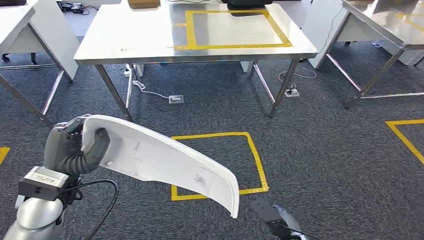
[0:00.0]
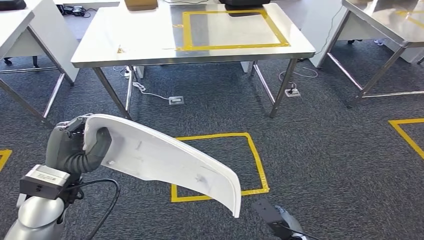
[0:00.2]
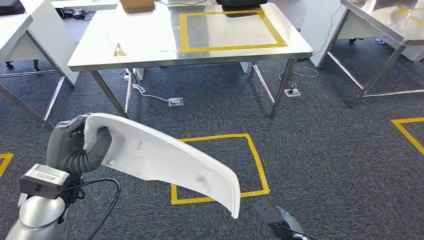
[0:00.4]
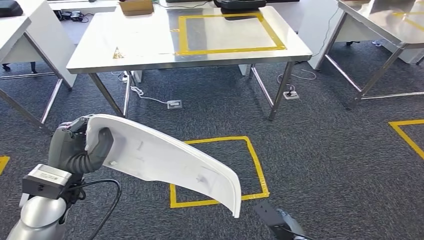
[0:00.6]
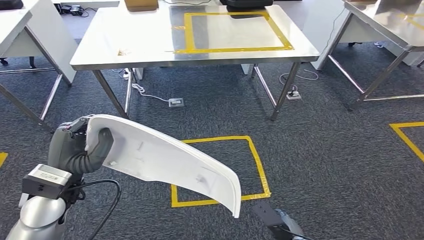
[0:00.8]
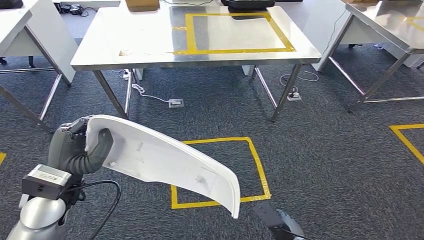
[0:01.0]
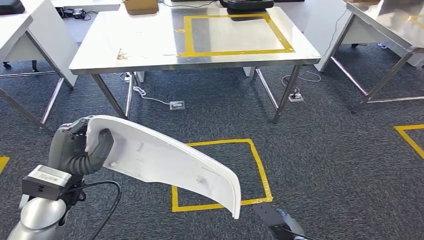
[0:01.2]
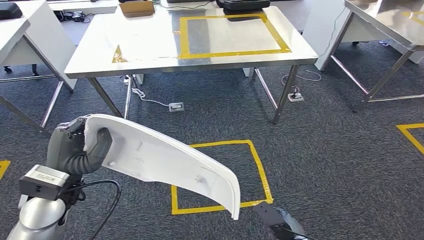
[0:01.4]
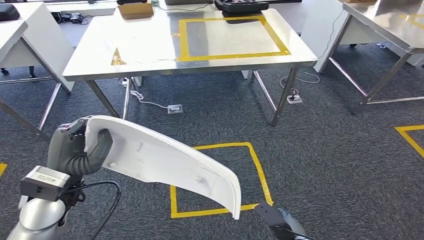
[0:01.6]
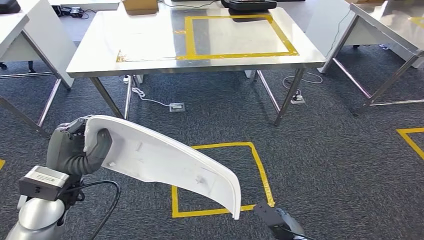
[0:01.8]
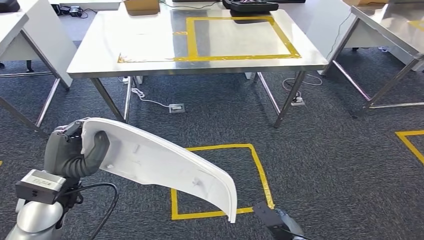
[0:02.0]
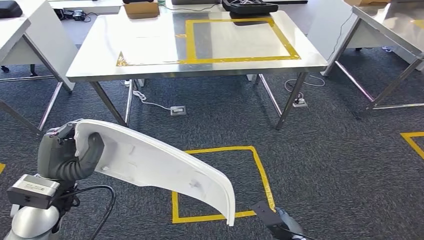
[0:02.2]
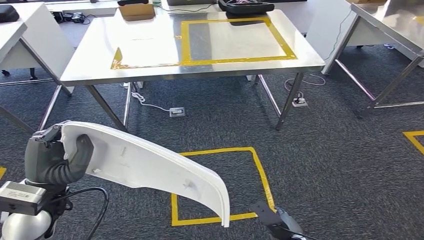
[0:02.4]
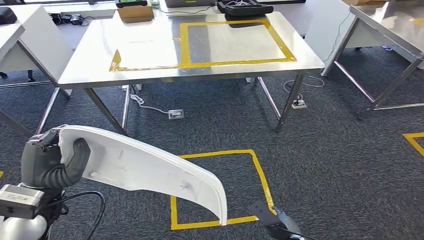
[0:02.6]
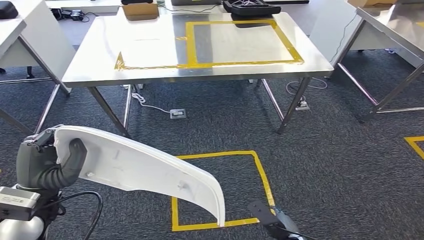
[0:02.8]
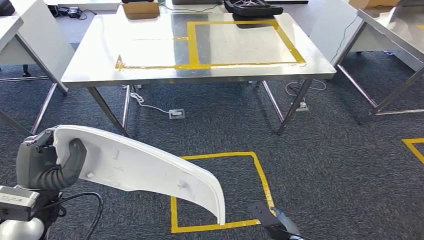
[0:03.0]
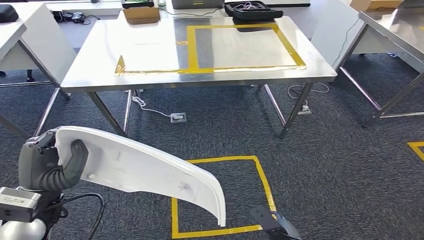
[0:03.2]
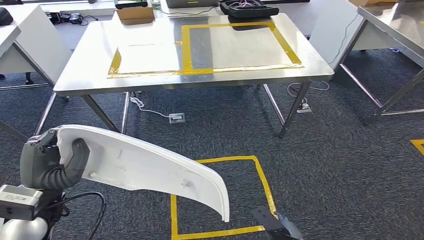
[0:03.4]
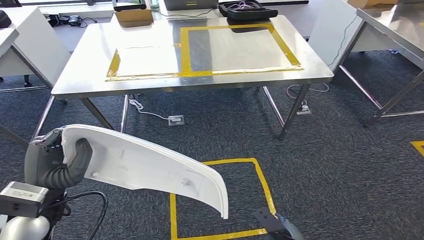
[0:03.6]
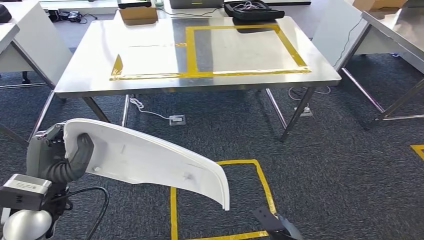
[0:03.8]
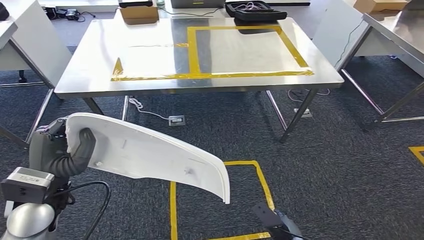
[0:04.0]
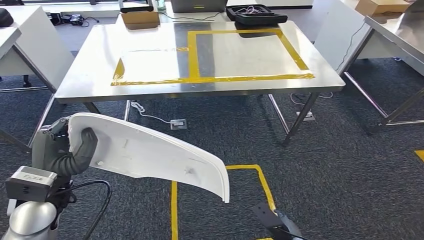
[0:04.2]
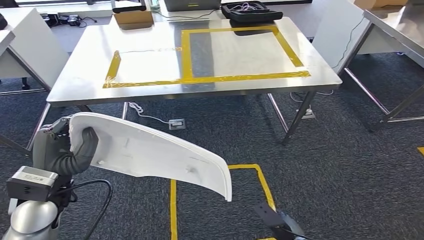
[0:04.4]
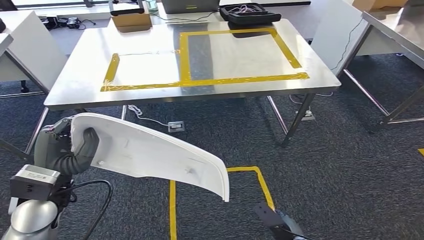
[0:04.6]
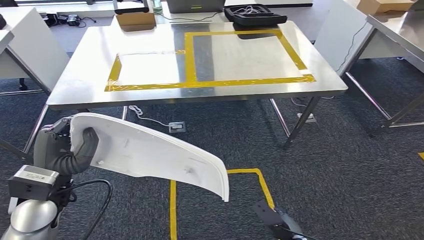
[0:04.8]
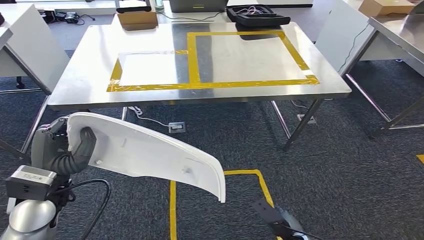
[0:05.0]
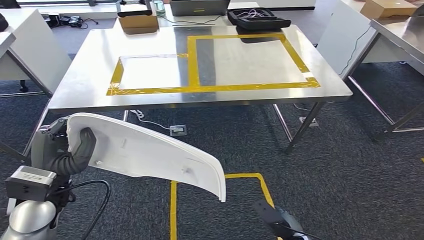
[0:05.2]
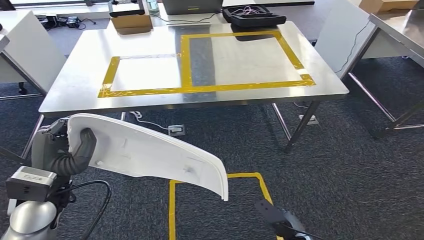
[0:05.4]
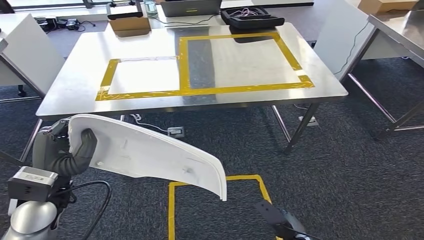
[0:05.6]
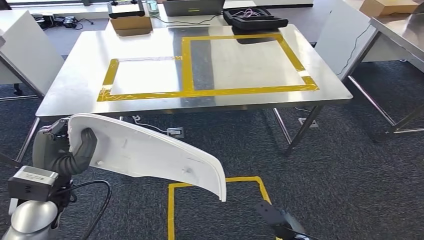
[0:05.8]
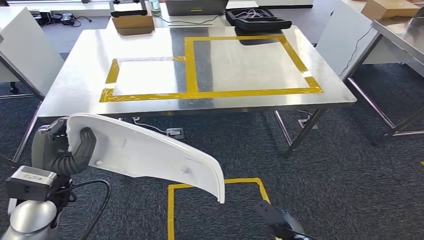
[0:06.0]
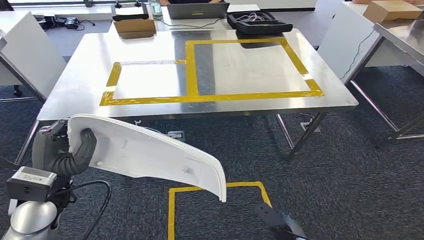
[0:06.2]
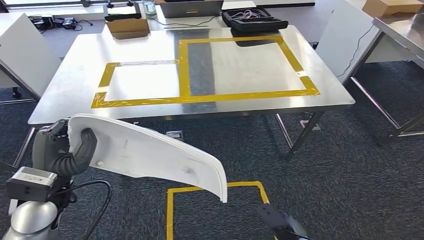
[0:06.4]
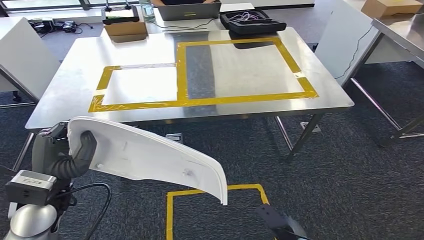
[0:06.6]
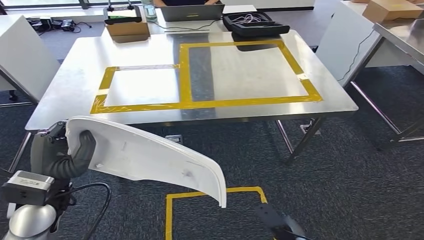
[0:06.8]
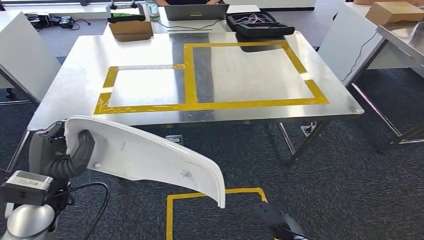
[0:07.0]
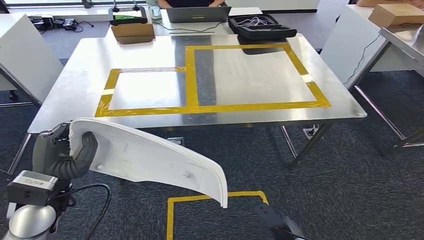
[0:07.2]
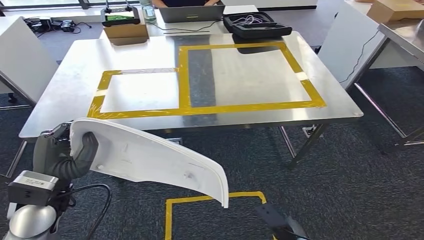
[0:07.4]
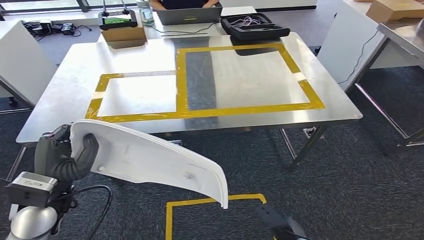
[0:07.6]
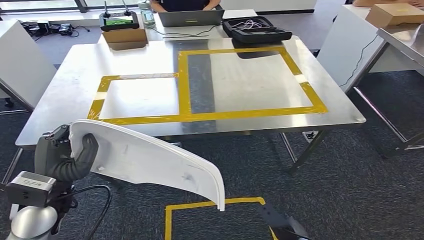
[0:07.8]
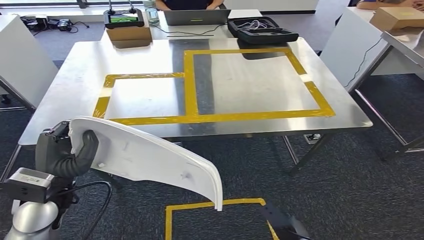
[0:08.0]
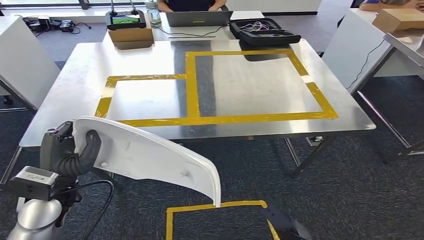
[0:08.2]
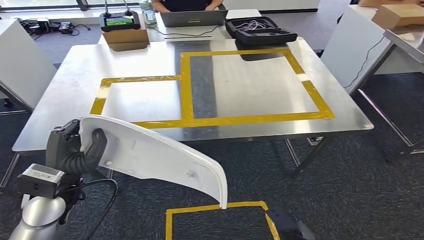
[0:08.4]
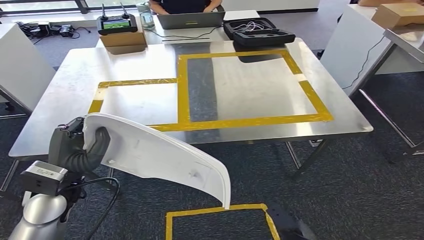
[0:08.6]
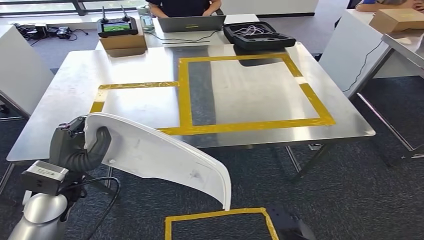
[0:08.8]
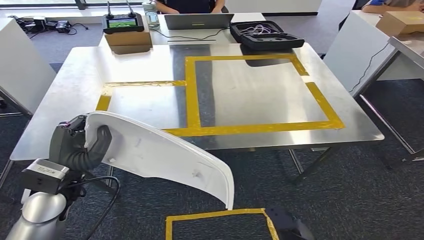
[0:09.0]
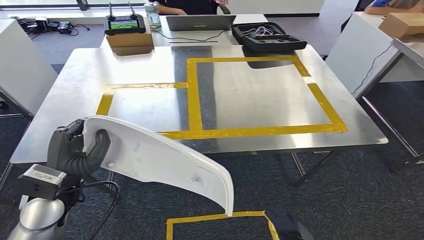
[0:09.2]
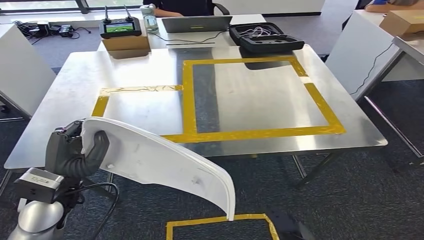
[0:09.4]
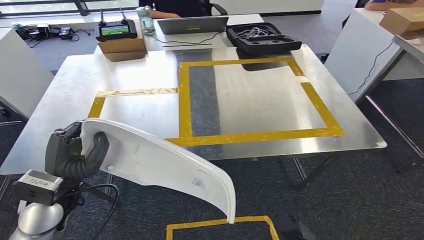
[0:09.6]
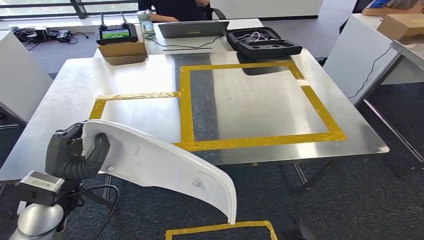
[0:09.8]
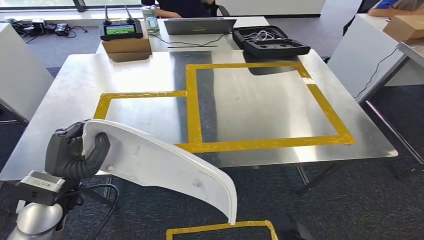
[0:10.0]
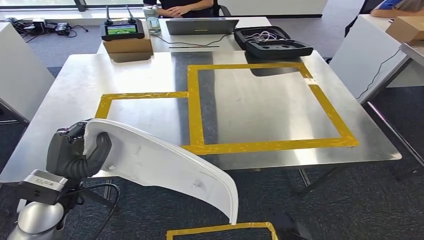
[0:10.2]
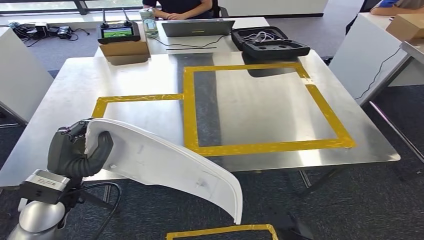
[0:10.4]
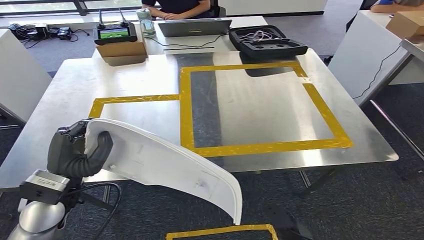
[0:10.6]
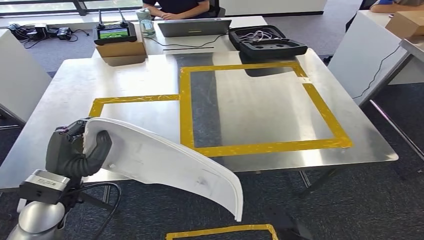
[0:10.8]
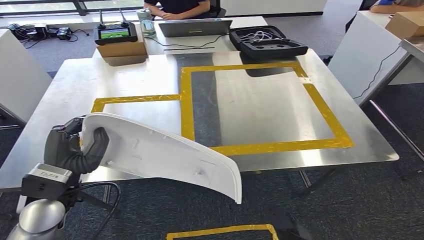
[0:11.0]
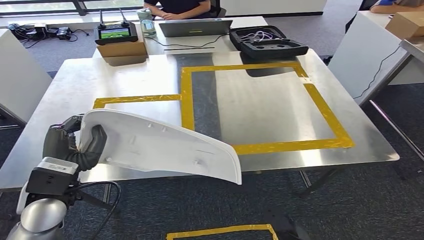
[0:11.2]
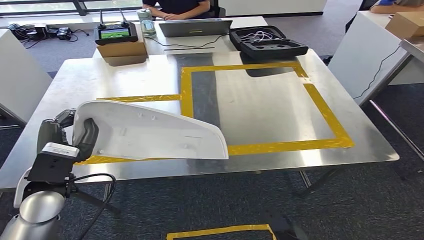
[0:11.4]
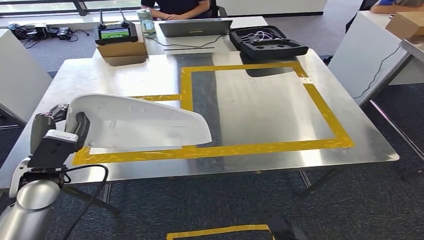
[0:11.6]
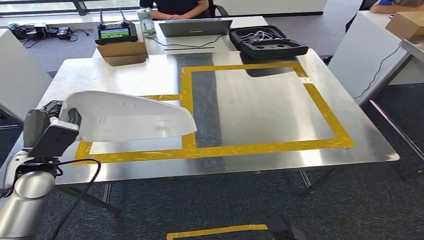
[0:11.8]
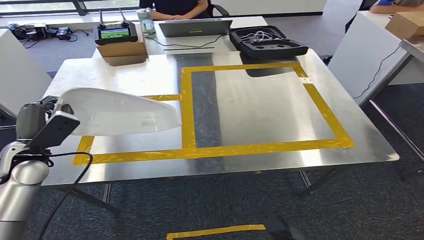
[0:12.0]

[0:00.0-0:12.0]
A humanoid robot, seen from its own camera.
Step, 0:00.0 to 0:09.8: Move the small component to the workbench.

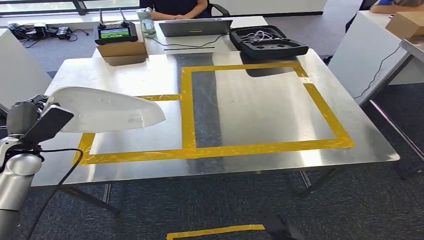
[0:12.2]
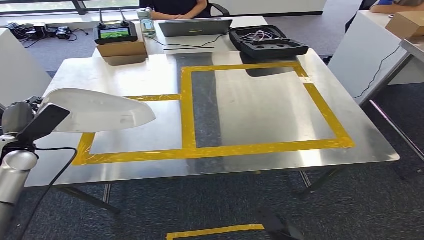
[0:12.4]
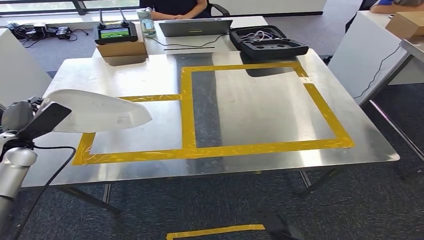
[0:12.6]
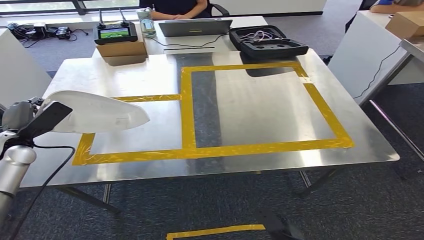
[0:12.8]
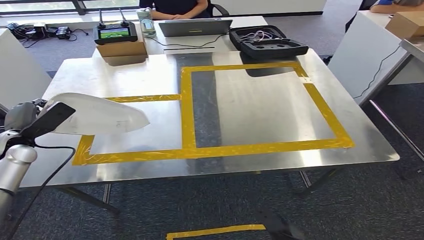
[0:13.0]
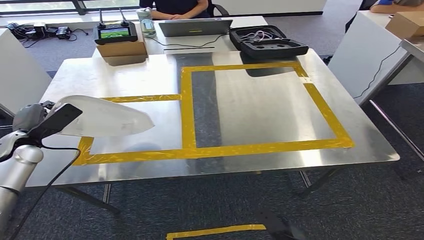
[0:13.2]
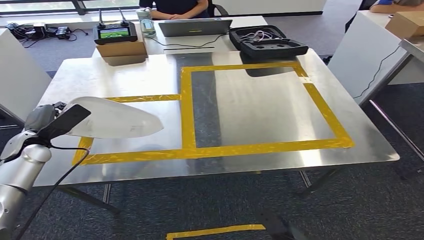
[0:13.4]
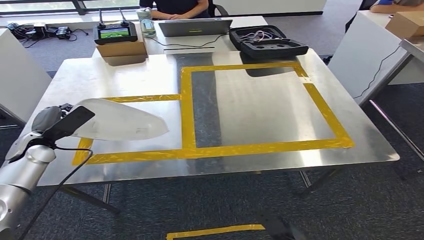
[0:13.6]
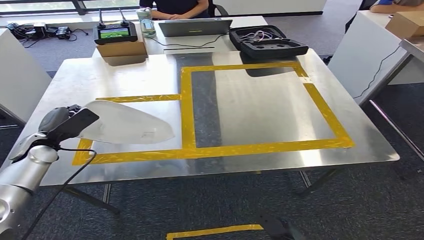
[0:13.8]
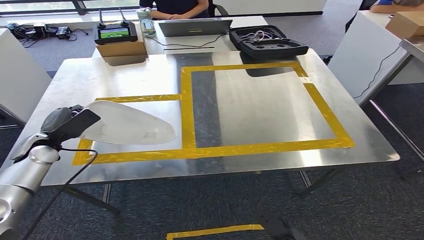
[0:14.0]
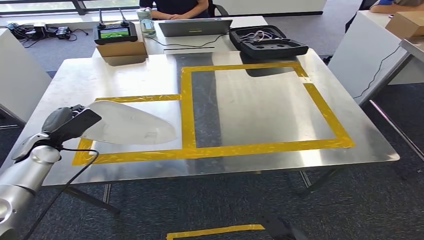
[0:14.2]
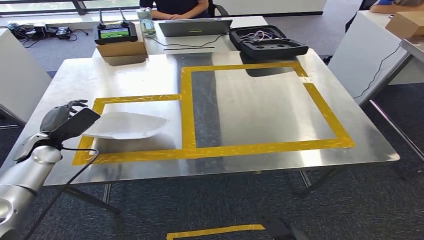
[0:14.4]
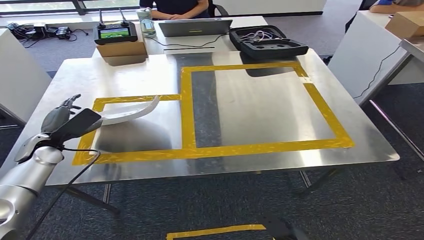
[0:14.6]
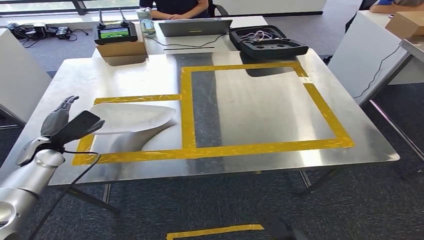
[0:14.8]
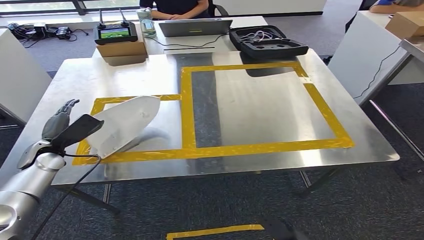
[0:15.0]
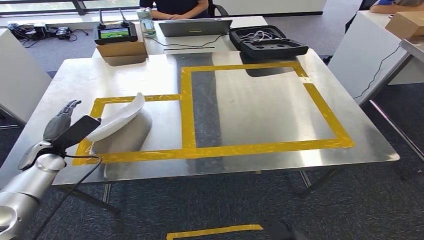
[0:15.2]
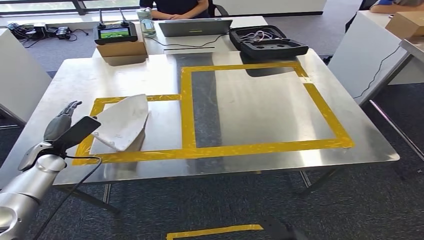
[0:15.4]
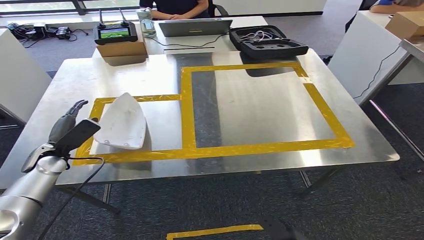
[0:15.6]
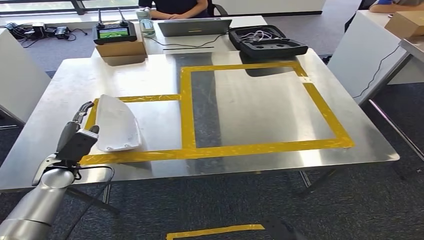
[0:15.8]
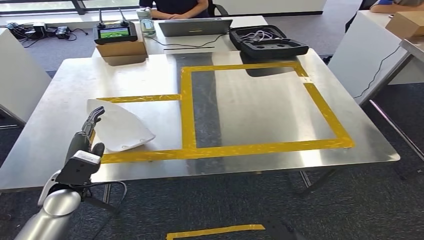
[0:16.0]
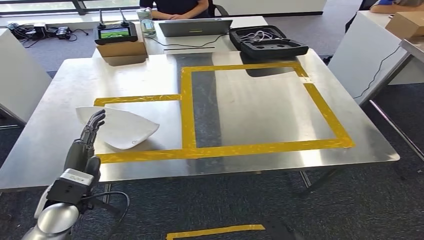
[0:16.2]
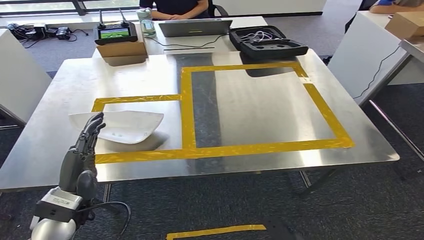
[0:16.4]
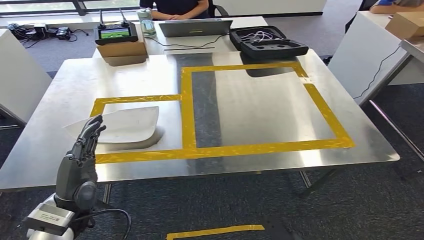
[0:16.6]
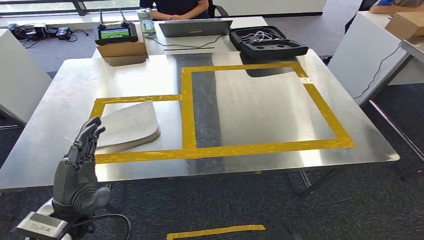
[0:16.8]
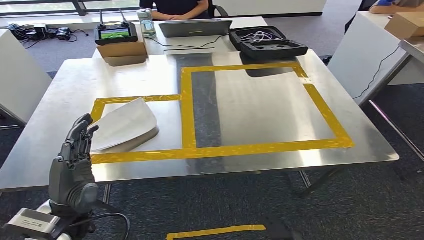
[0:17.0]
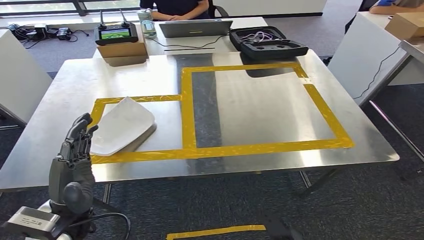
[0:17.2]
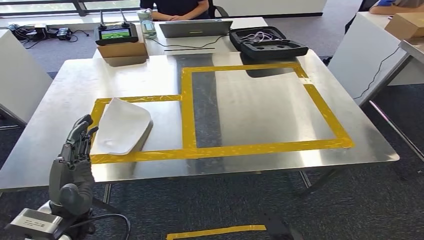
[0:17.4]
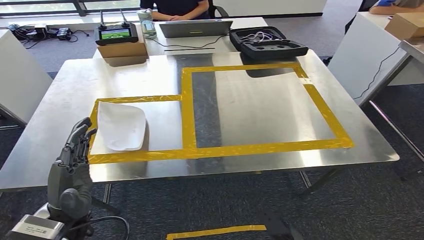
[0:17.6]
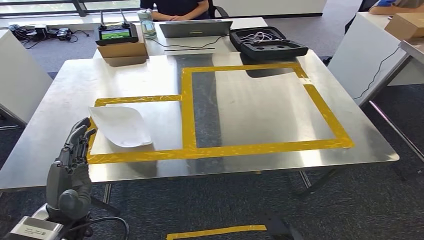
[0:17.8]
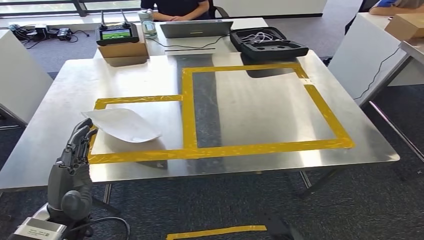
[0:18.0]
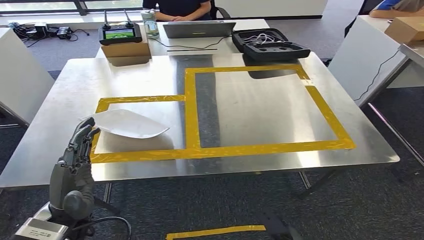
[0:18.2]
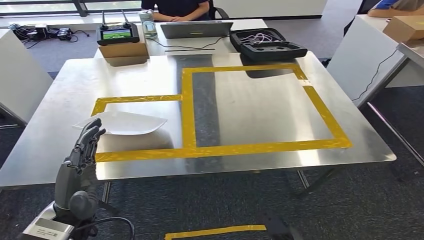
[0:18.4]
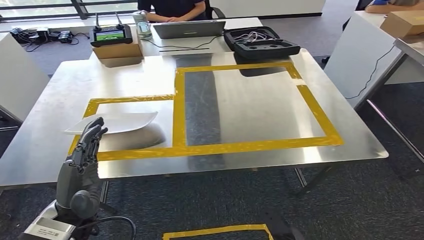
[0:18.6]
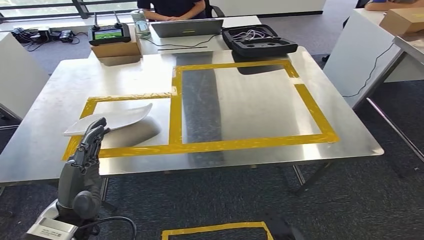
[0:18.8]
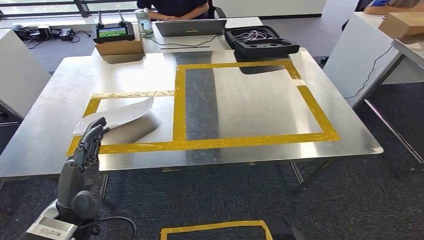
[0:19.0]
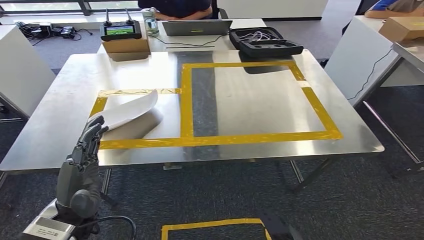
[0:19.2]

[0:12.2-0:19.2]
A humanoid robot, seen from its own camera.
Step, 0:12.2 to 0:17.2: Insert the small component into the corresponding slot on the workbench.
0:12.2 to 0:15.0: There are only small adjustments of the hands.
0:15.0 to 0:16.4: The left hand heads to the right and backward, covering approximately 20 cm.
0:16.4 to 0:17.8: The hands make only small movements.
